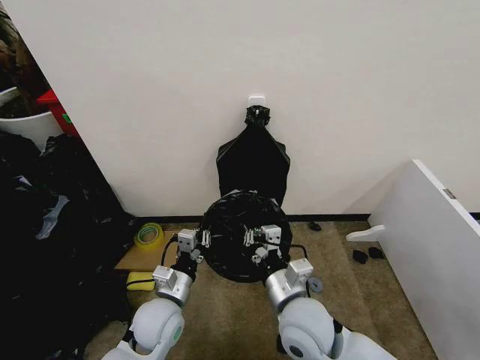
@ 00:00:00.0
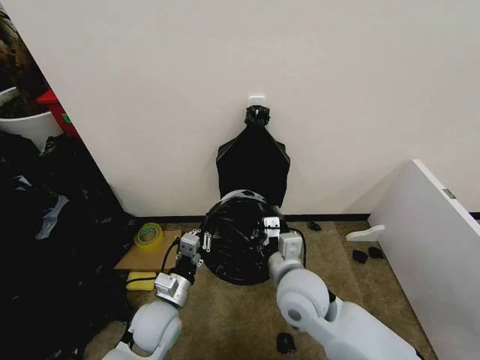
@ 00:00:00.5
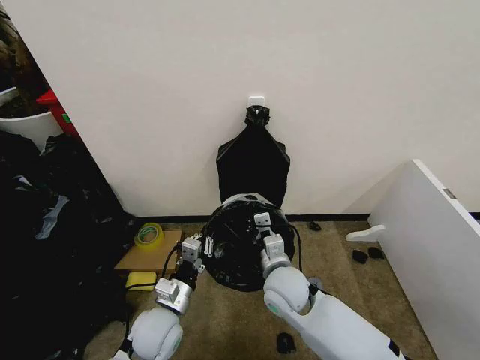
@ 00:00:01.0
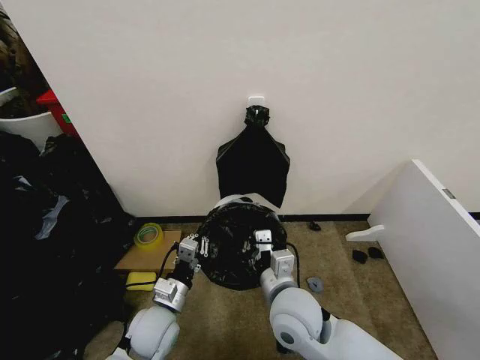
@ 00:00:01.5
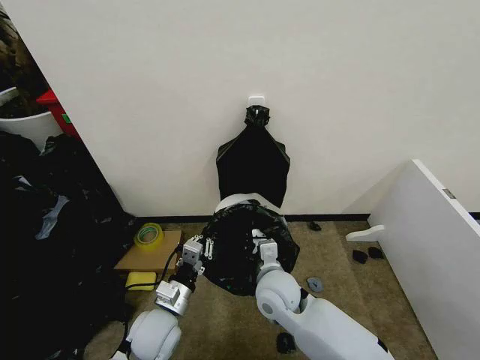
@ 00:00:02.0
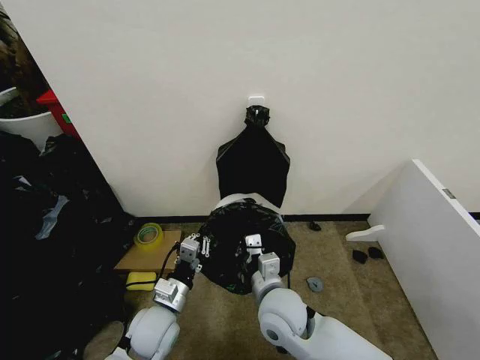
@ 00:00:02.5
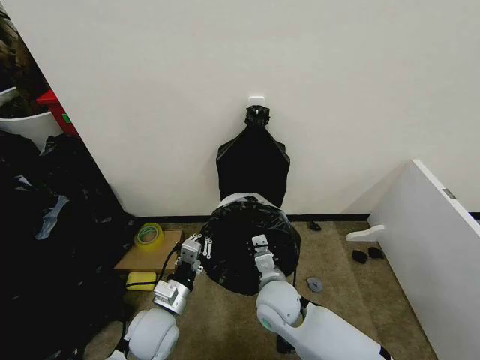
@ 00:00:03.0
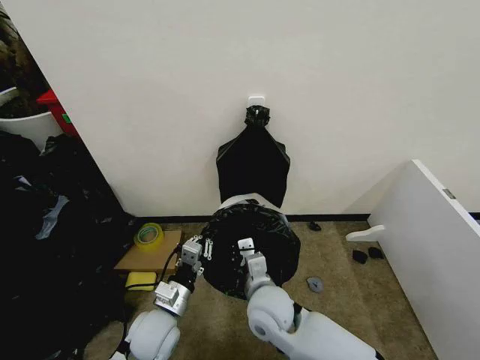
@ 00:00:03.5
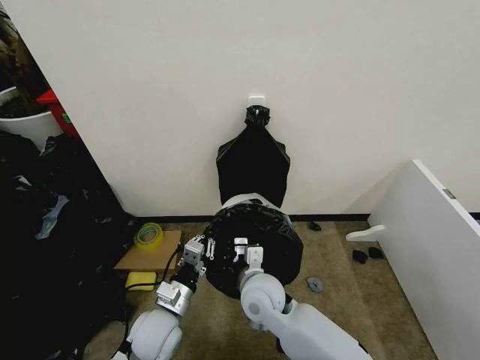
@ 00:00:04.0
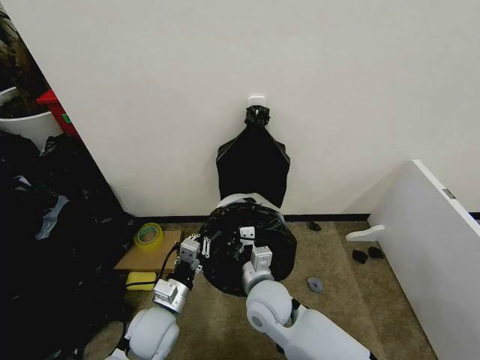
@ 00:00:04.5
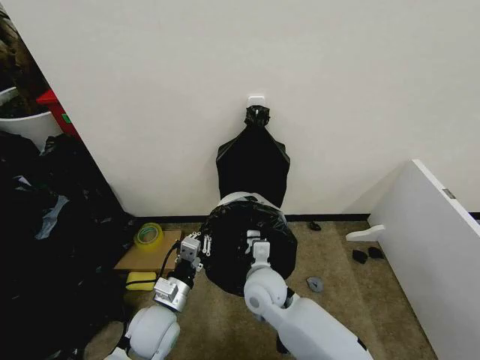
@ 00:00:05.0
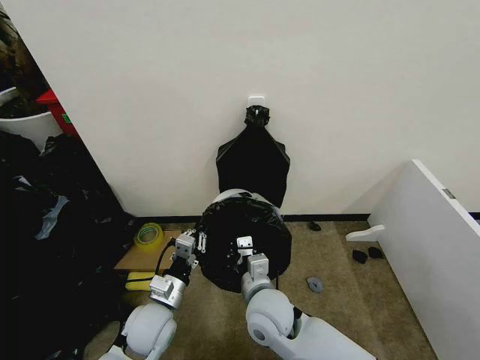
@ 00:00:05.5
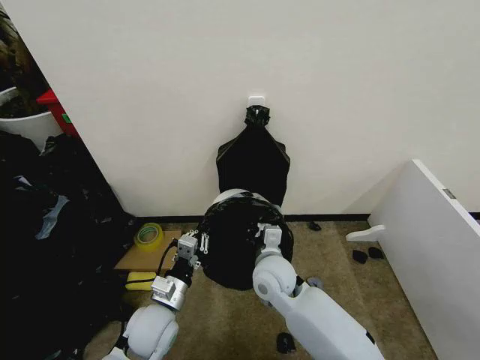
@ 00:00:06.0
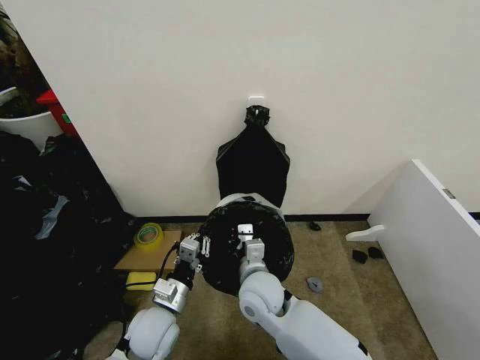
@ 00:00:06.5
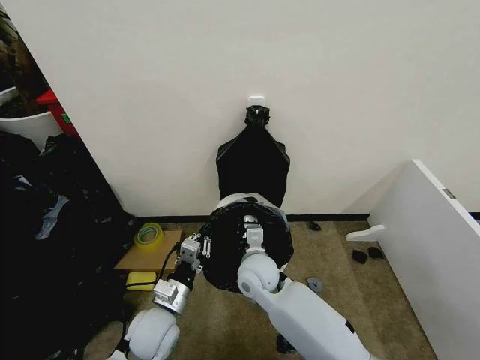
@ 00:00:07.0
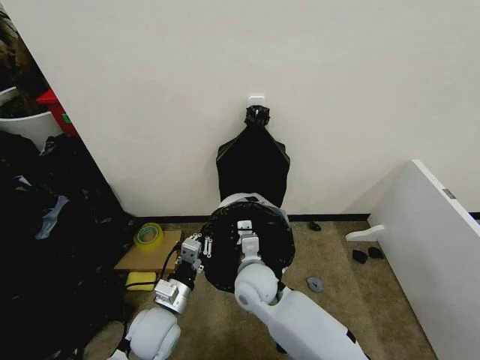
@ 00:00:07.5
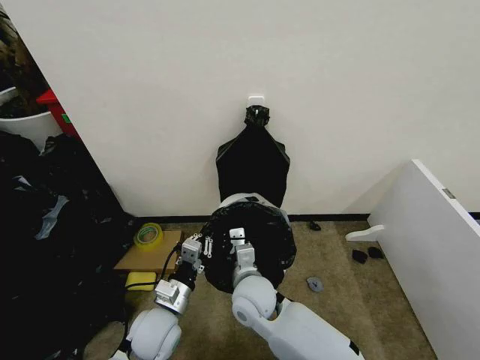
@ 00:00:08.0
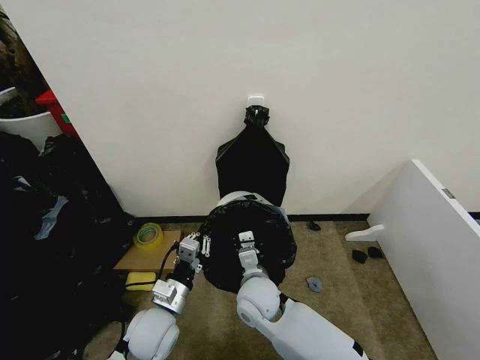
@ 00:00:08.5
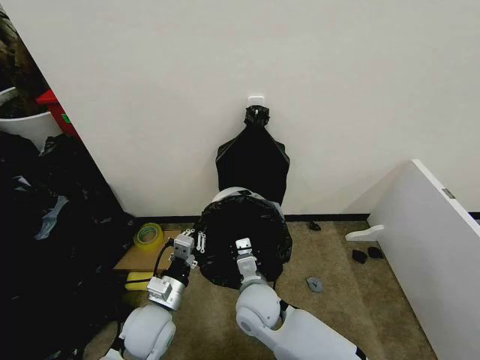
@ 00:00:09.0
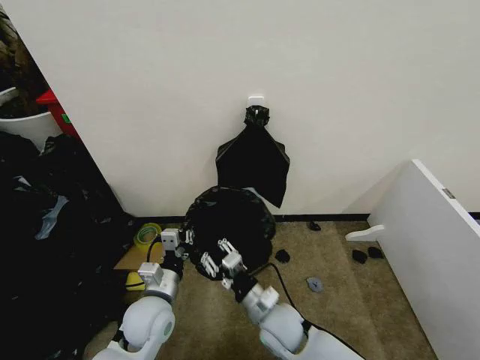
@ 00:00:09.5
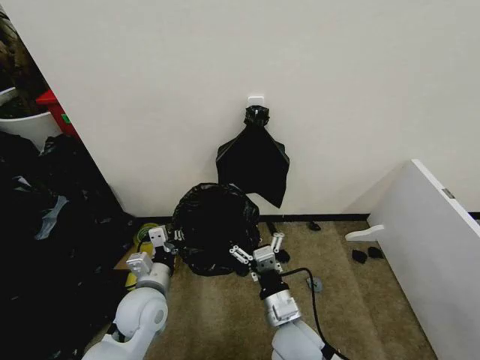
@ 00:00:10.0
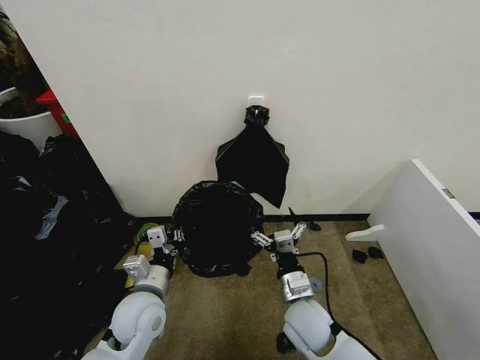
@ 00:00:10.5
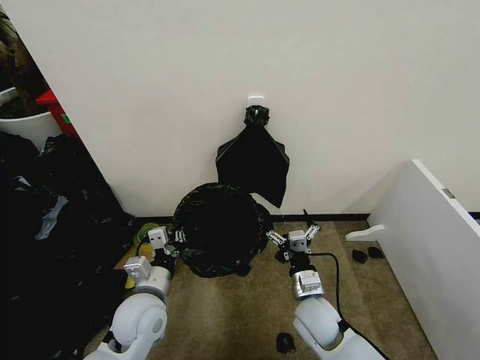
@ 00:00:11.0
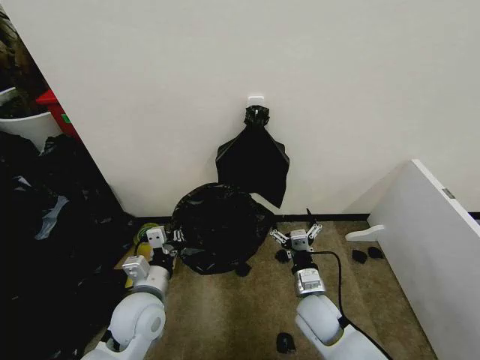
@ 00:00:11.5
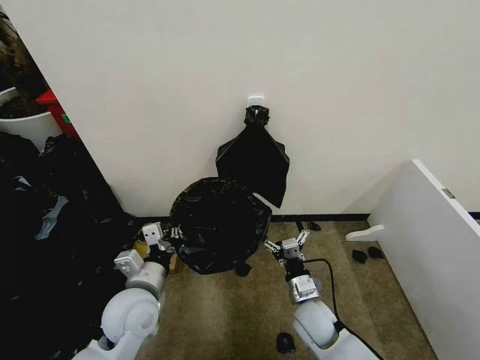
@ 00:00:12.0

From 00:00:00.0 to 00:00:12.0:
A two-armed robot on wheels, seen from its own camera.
Task of the whole recording: Place the garbage bag over the trash bin.
From 00:00:00.0 to 00:00:02.0: The right gripper goes forward and backward, about 10 cm each way, reversing 2 times.
From 00:00:02.0 to 00:00:04.0: The grippers stay close to where they were, moving slightly.
From 00:00:06.0 to 00:00:08.0: The right gripper ends up roughly 5 cm from where it was.
From 00:00:08.0 to 00:00:10.0: The right gripper is displaced backward and to the right by about 10 cm, and opens up. Meanwhile the left gripper ends up about 5 cm from where it was.
From 00:00:10.0 to 00:00:12.0: The right gripper heads downward, to the right and forward, covering approximately 10 cm.

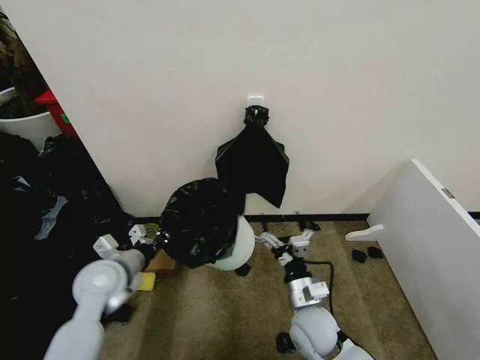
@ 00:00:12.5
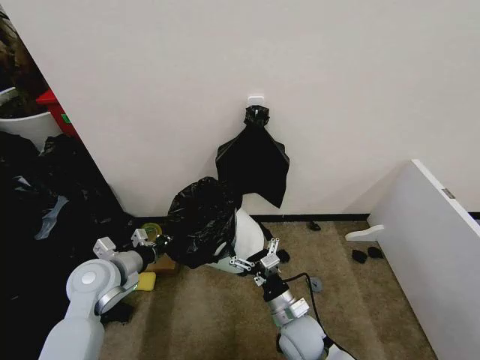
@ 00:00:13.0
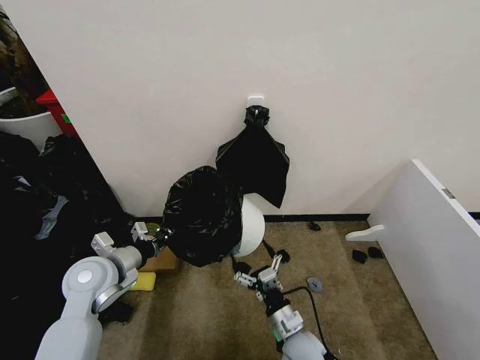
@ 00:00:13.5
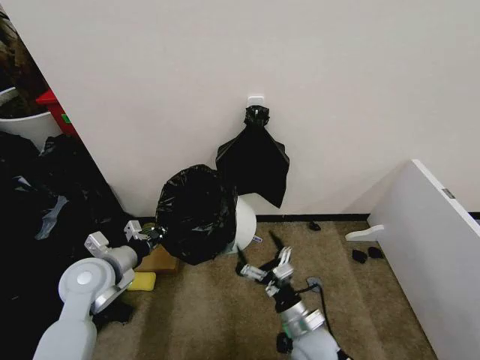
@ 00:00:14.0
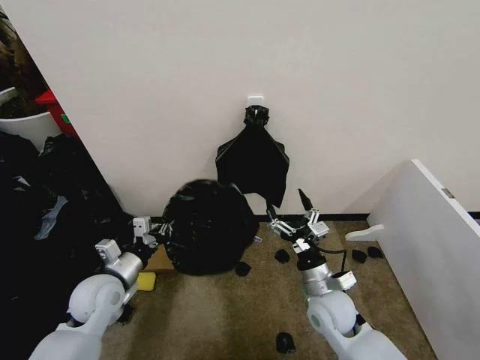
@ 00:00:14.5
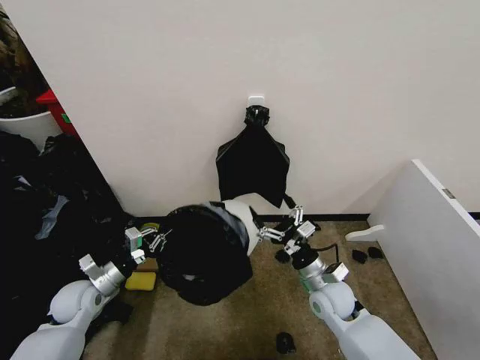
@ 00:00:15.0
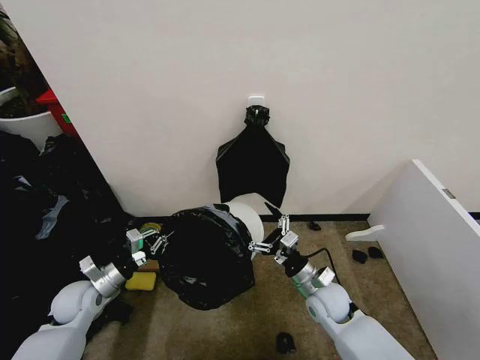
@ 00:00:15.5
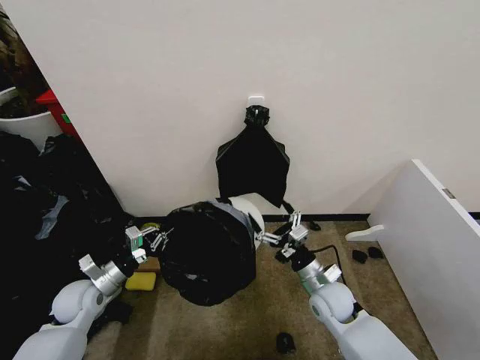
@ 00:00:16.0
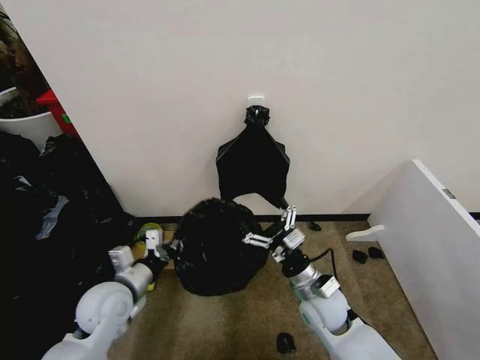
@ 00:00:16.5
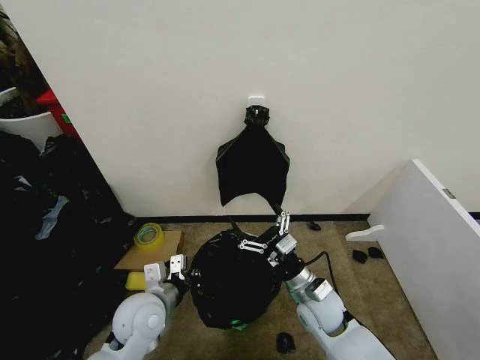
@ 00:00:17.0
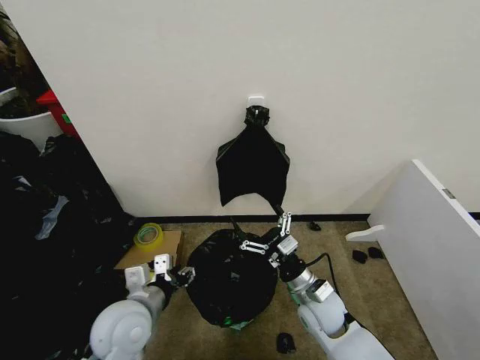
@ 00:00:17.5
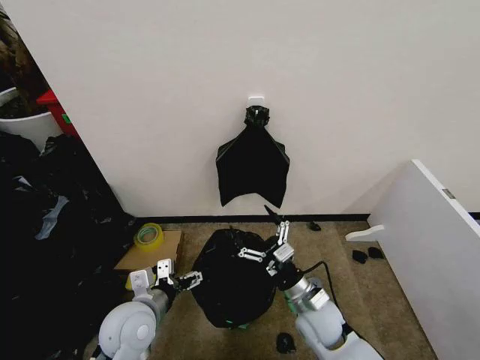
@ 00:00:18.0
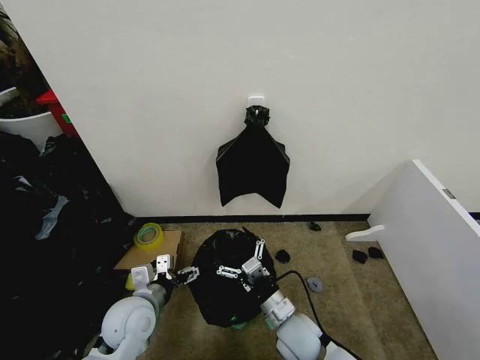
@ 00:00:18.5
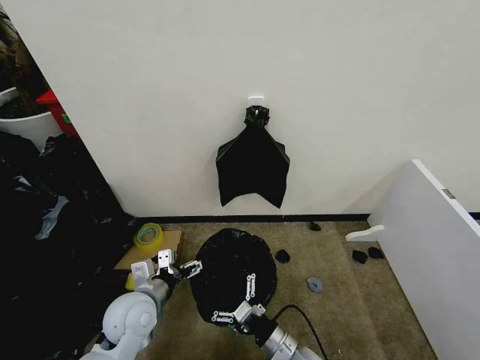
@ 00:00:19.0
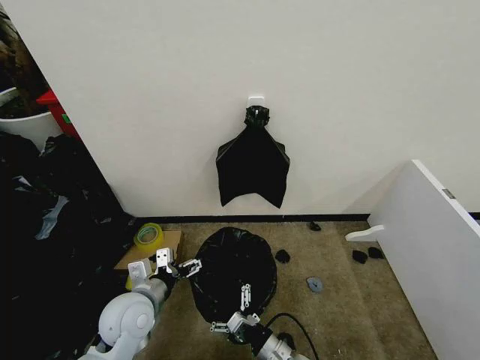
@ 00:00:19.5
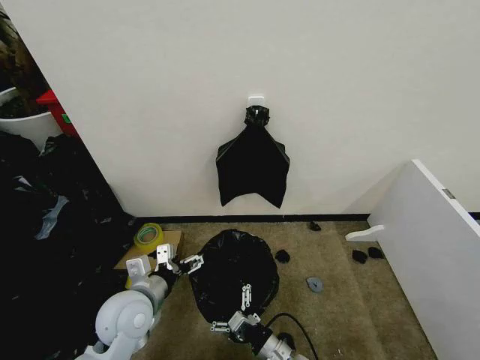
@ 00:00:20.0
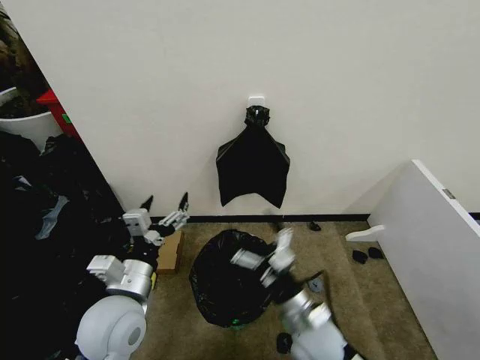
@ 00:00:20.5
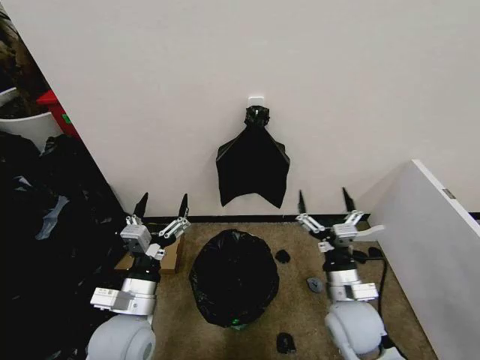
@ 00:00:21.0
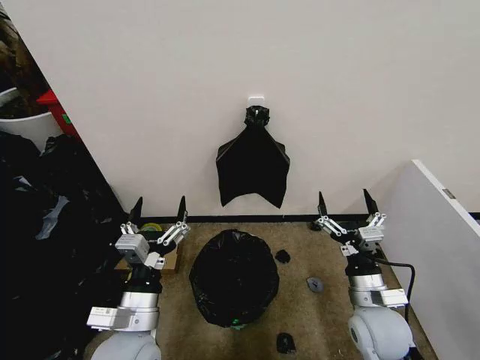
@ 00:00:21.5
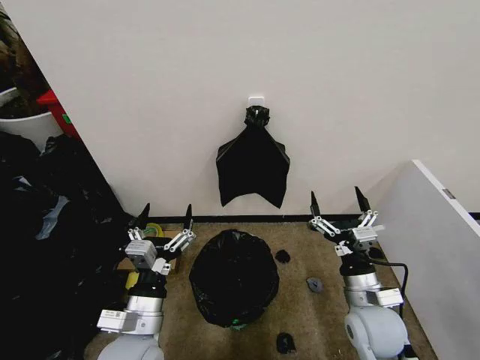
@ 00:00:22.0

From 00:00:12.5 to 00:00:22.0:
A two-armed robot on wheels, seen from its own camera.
Task of the whole recording: Place the garbage bag over the trash bin.
From 00:00:12.5 to 00:00:14.5: The right gripper goes downward and returns, approximately 5 cm each way.
From 00:00:14.5 to 00:00:16.5: The left gripper travels to the left and back again, roughly 10 cm each way.
From 00:00:16.5 to 00:00:18.0: The left gripper travels to the right by approximately 5 cm, and opens its fingers.
From 00:00:18.0 to 00:00:20.0: The right gripper heads backward and downward, covering approximately 15 cm.
From 00:00:20.0 to 00:00:22.0: The left gripper travels backward by some 5 cm; the right gripper goes approximately 20 cm upward, to the right and forward.
